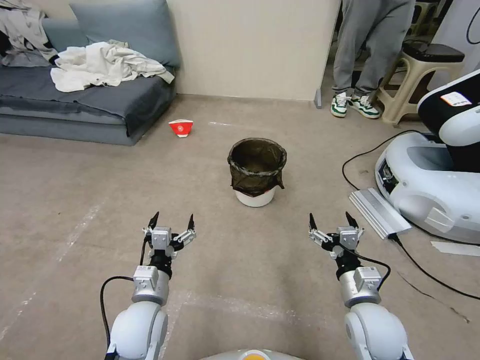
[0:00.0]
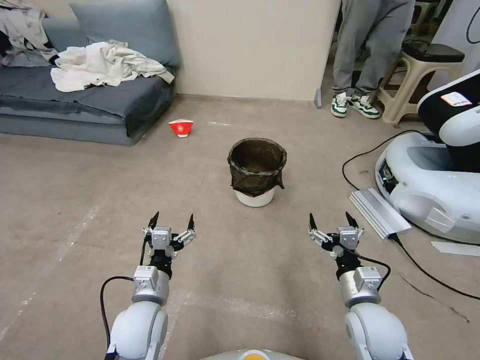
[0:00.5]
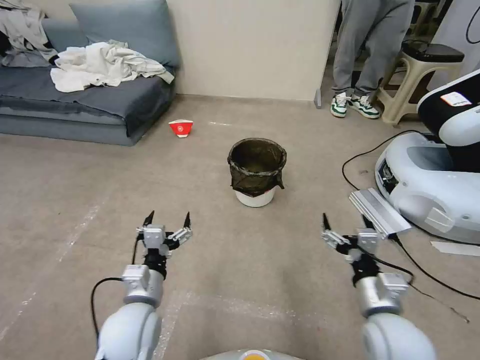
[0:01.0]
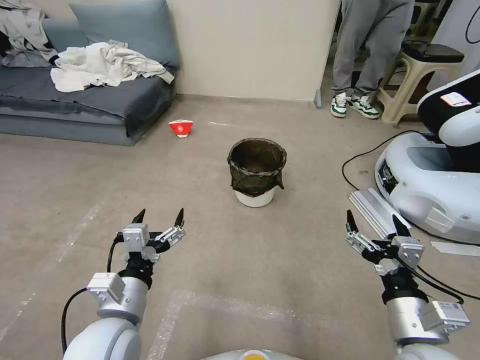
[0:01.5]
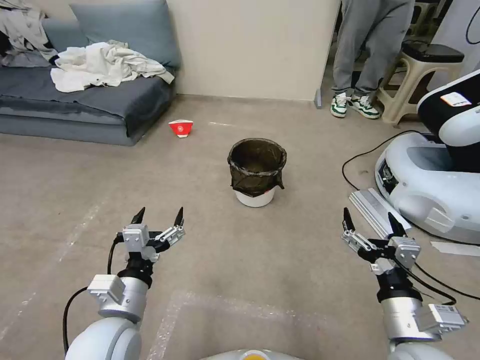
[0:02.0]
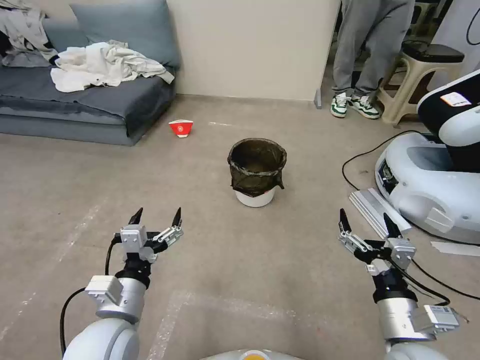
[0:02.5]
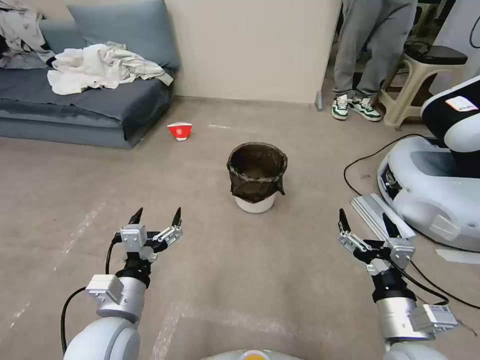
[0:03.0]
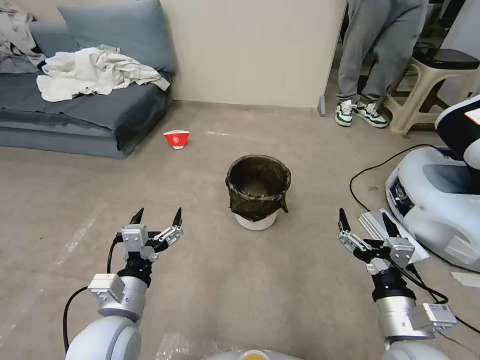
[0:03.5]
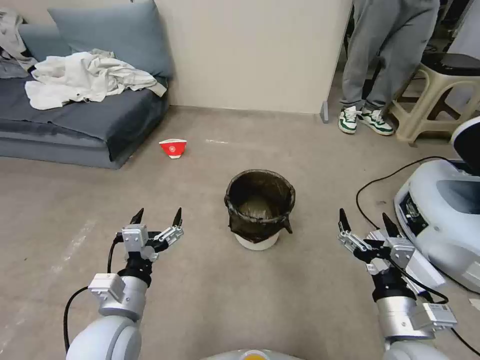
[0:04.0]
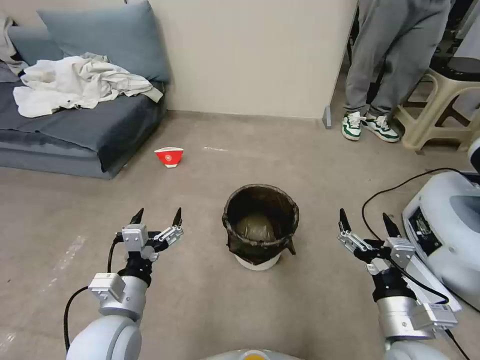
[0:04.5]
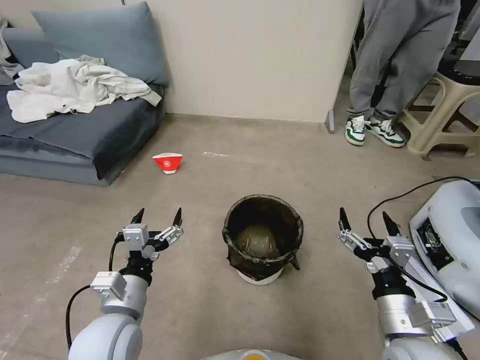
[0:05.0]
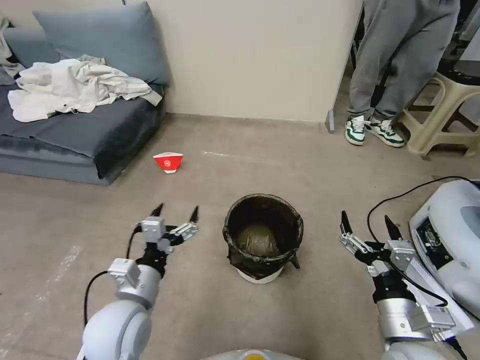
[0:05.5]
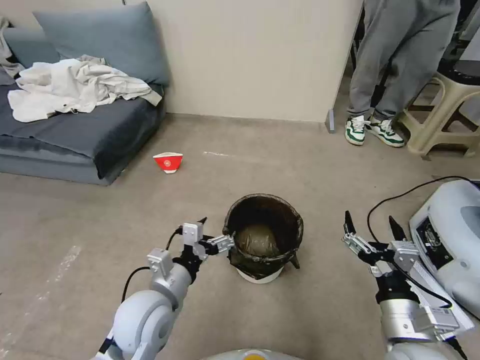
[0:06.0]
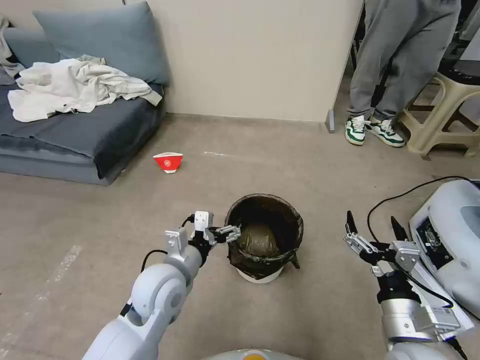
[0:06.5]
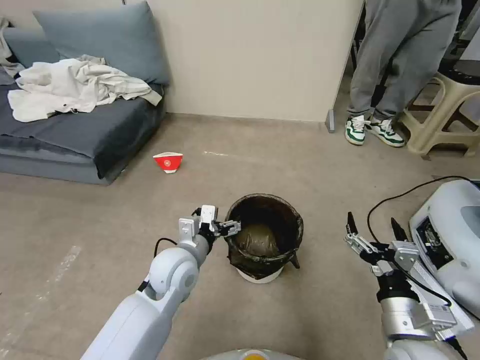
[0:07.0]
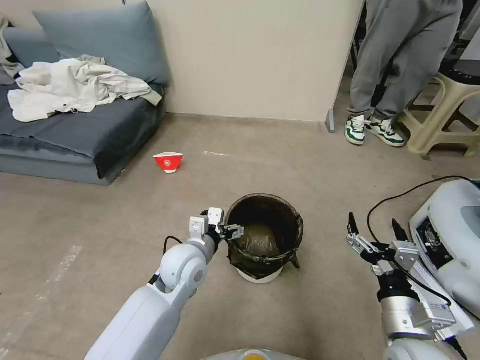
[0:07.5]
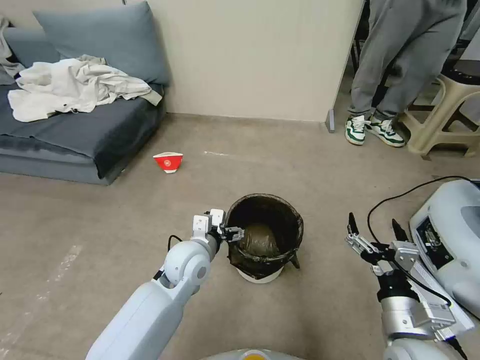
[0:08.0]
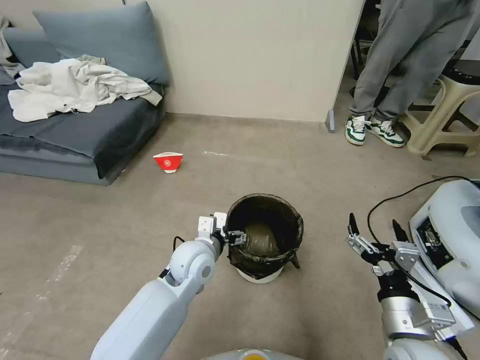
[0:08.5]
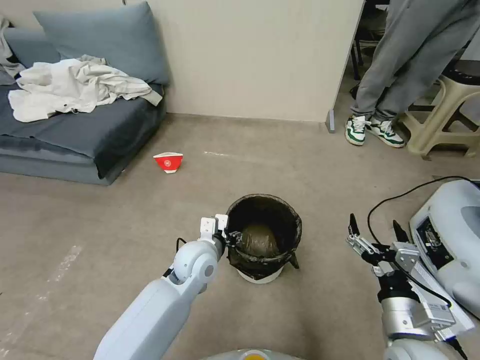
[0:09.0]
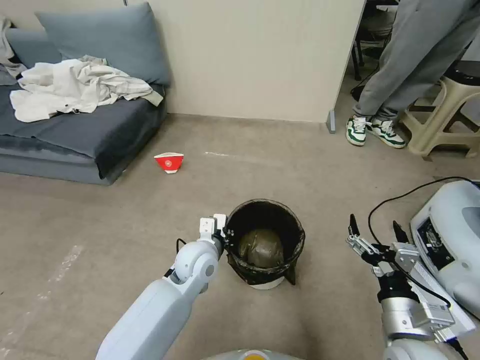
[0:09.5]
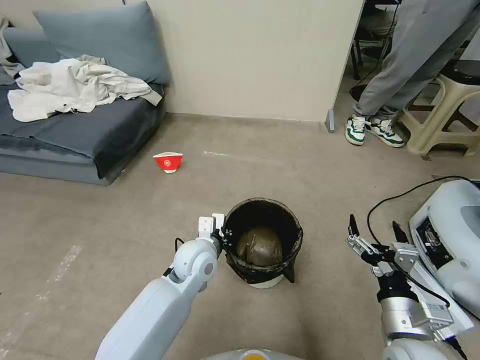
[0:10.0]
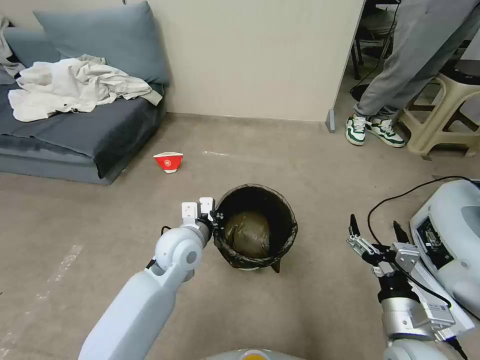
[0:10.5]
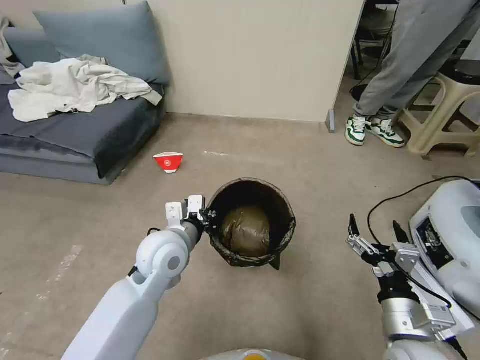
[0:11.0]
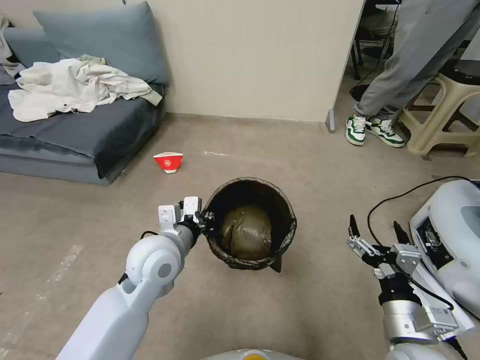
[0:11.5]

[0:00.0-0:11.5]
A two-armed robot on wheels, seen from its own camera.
Task of the whole recording: Pick up the trash can from the floor.
0:04.0 to 0:06.0: The left gripper moves roughly 5 cm.
0:06.0 to 0:07.5: The left gripper is displaced forward by roughly 10 cm.
0:07.5 to 0:09.5: The left gripper closes up.
0:09.5 to 0:11.5: The left gripper travels upward and to the left by approximately 10 cm.
